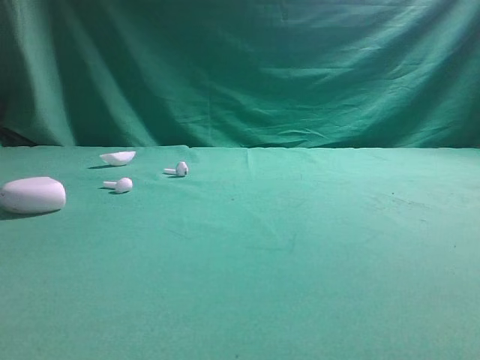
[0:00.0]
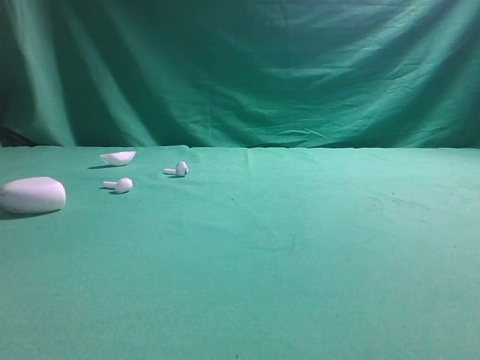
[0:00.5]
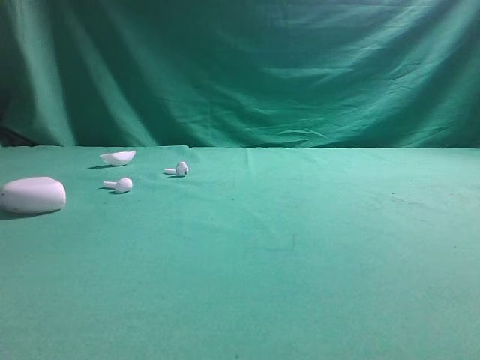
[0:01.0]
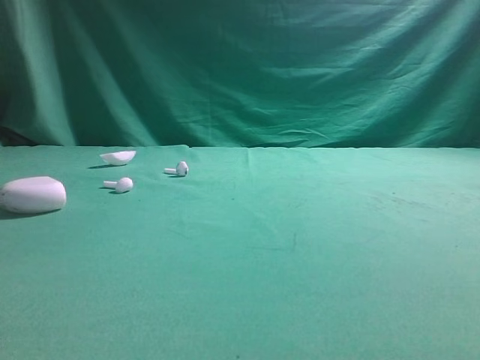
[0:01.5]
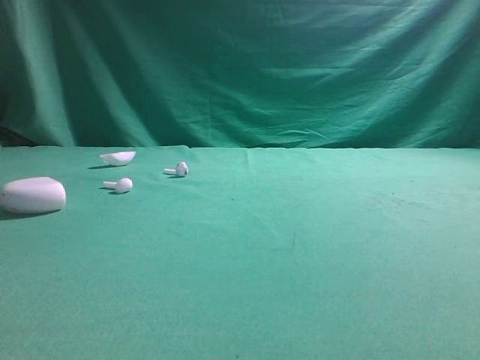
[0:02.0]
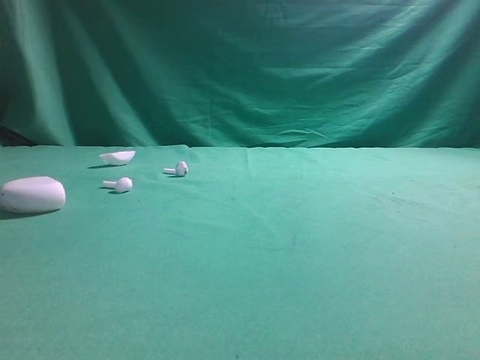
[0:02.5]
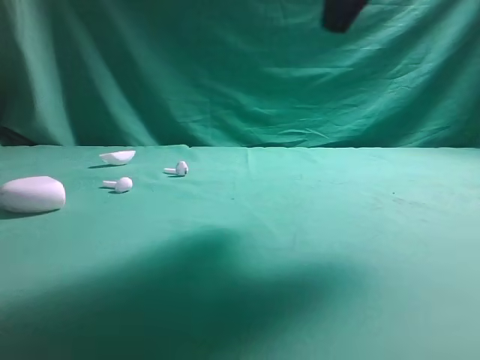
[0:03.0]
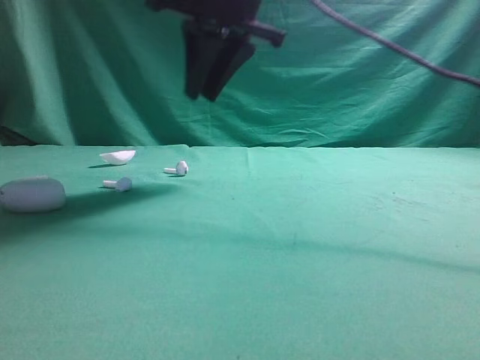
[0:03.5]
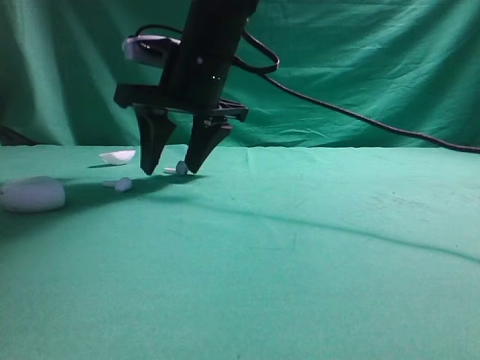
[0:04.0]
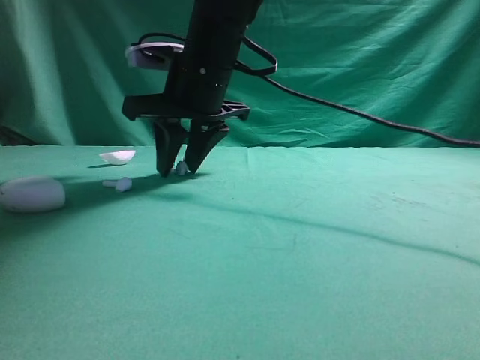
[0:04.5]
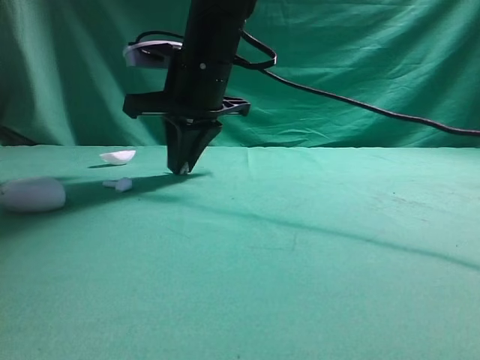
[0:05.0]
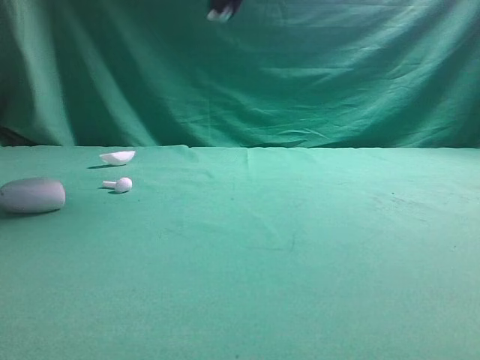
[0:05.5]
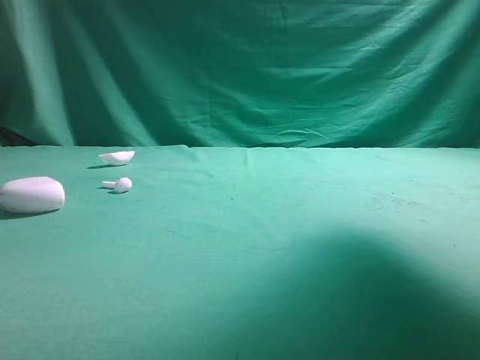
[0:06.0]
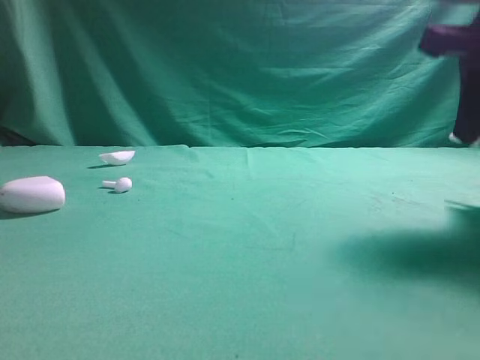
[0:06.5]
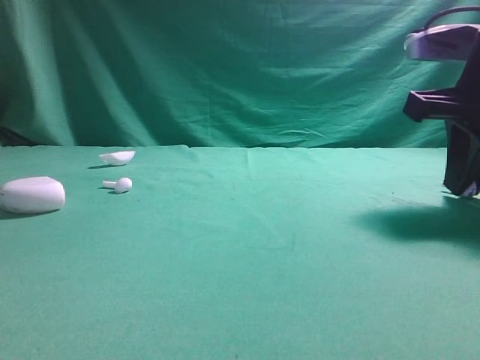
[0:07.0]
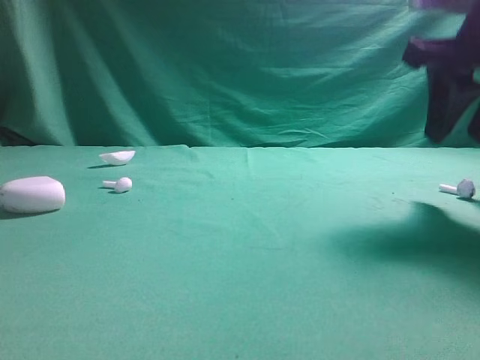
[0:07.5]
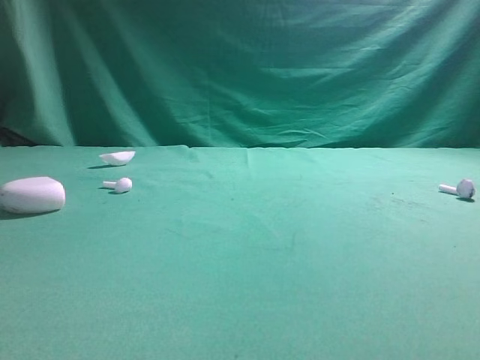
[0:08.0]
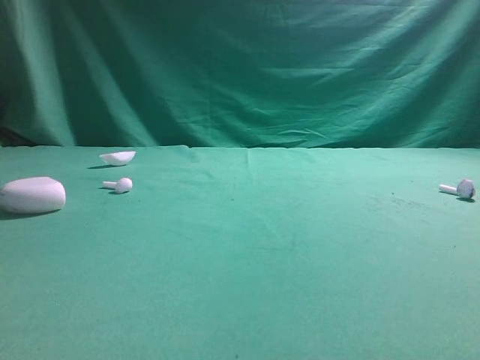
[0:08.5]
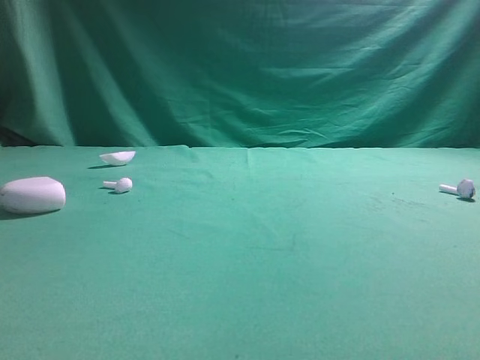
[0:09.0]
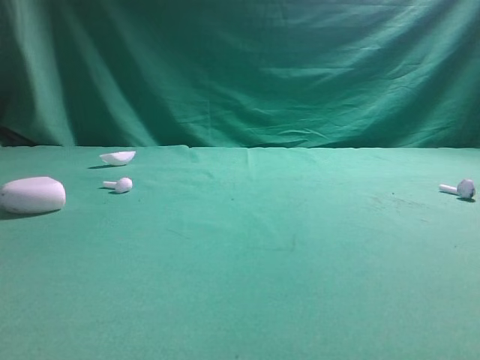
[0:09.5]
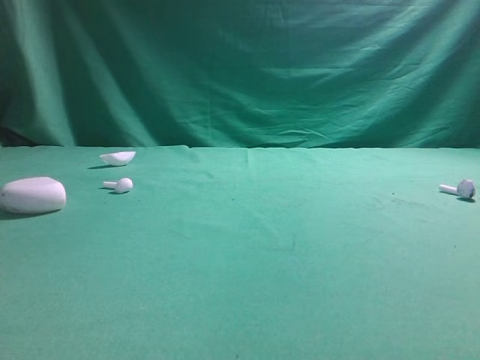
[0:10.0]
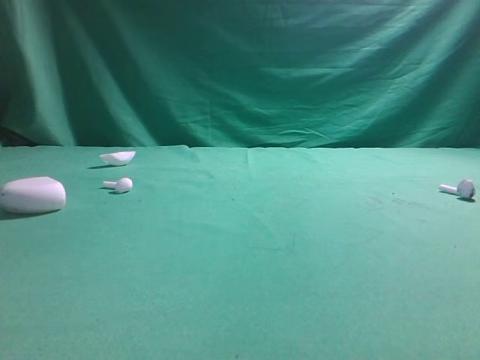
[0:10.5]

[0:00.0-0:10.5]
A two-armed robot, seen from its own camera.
Step, 0:00.0 to 0:05.0: Grasp the Bluetooth earbud.
Step, 0:05.5 to 0:07.5: Place bluetooth earbud on the right side of the table.

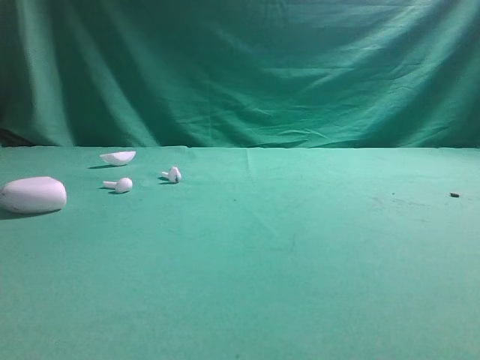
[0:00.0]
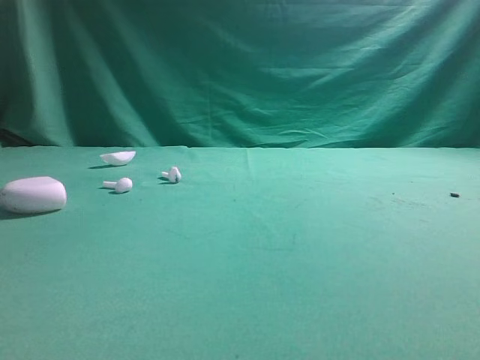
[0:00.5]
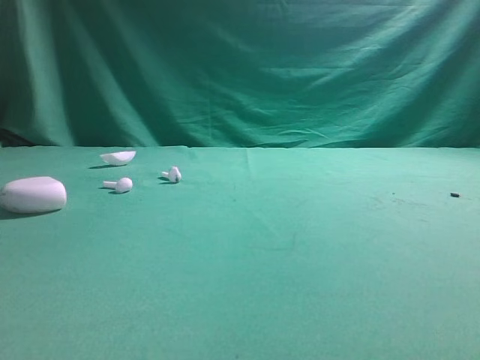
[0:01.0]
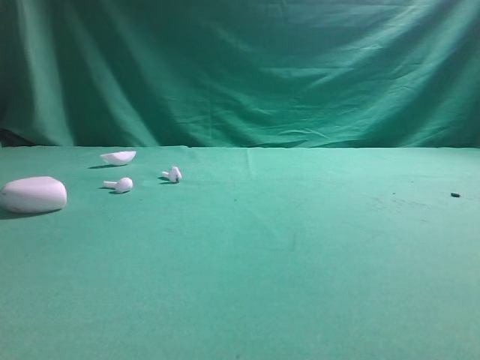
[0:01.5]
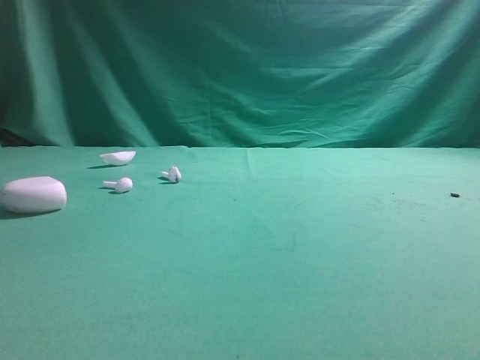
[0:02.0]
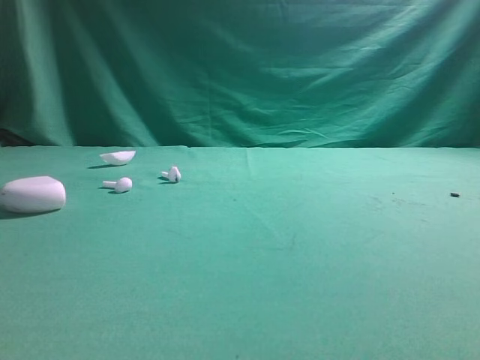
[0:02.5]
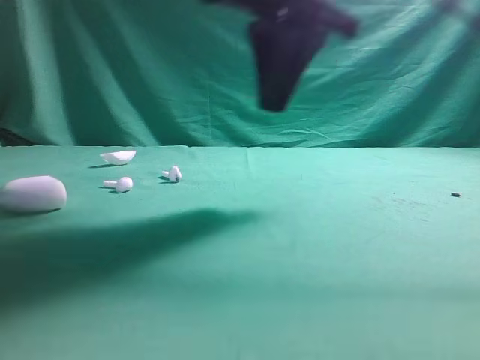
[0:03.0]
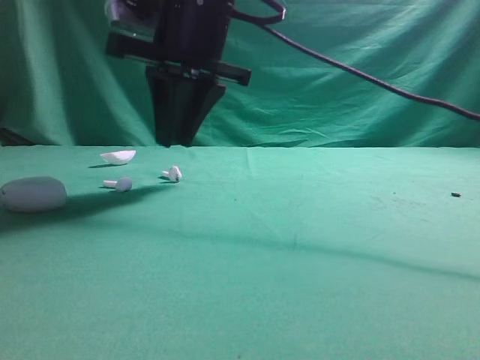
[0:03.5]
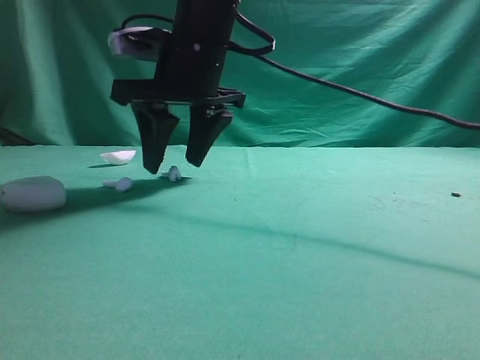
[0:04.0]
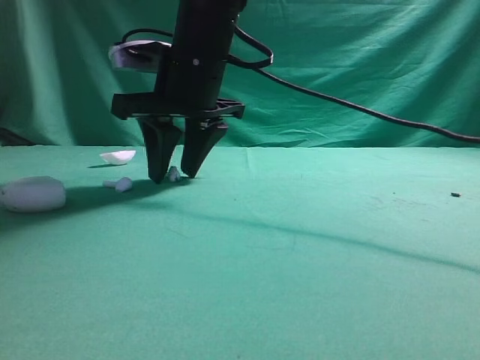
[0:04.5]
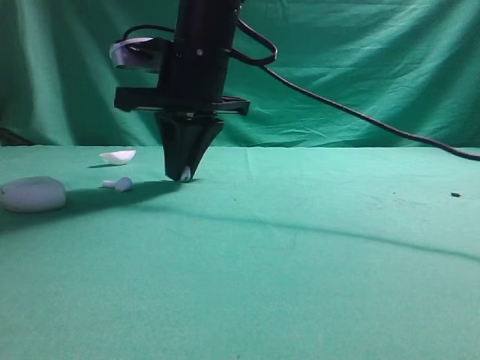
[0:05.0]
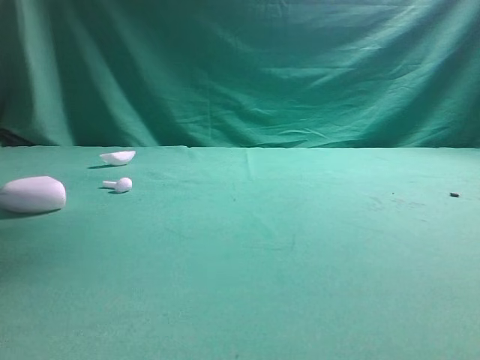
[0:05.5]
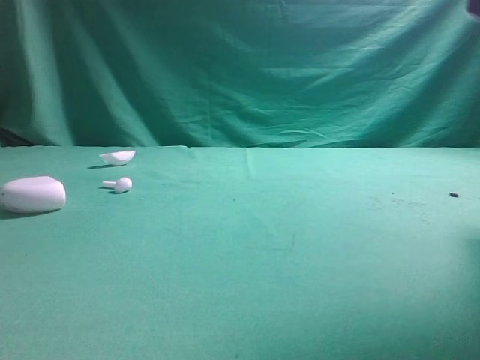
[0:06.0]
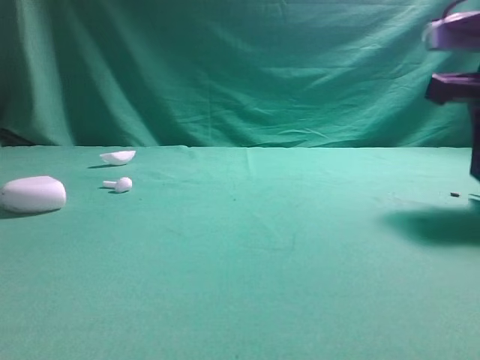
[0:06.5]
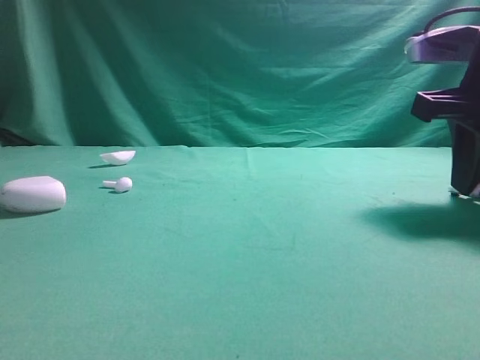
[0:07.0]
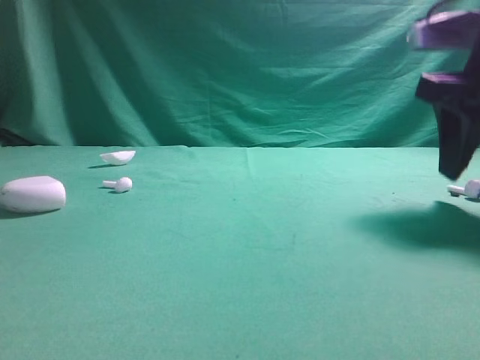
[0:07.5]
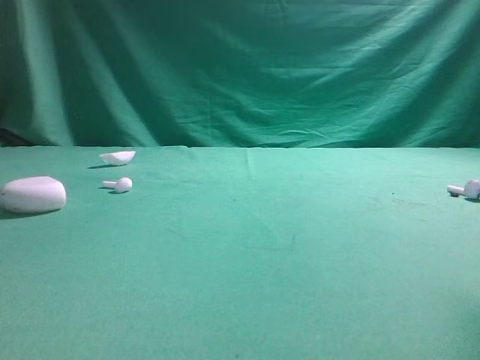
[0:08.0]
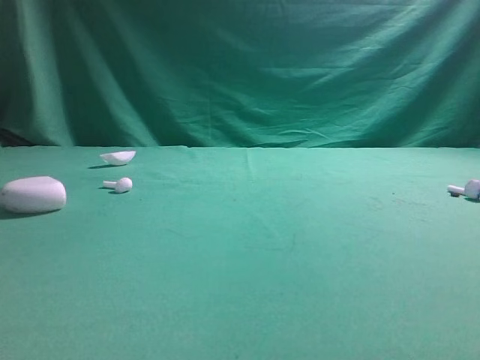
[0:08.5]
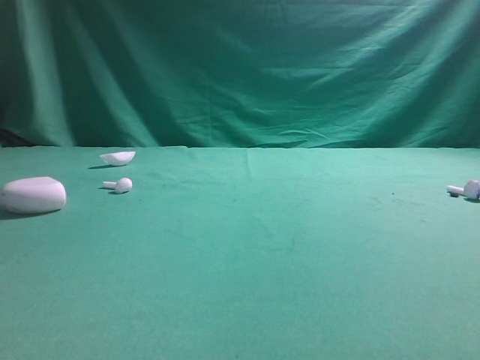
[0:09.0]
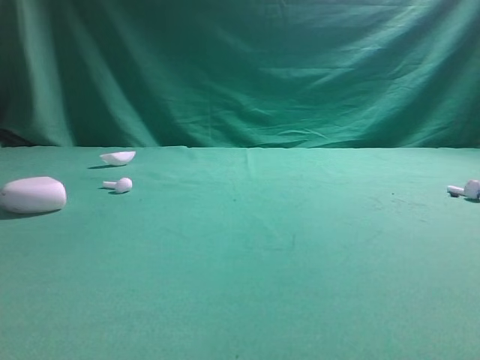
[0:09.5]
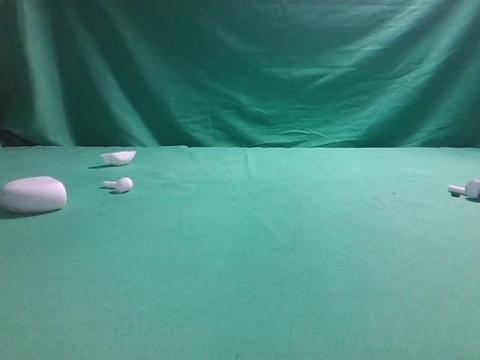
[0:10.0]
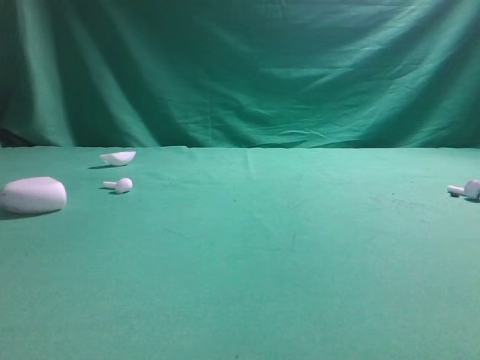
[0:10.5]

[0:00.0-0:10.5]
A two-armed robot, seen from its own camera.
Step, 0:00.0 to 0:05.0: Grasp the Bluetooth earbud.
Step, 0:05.5 to 0:07.5: Place bluetooth earbud on the right side of the table.

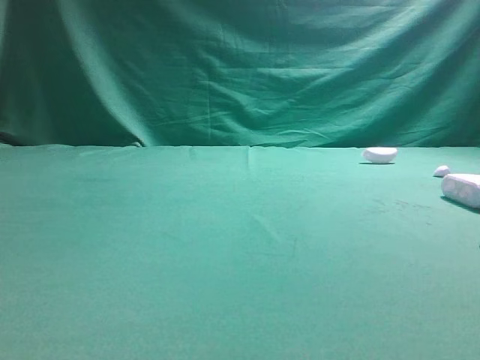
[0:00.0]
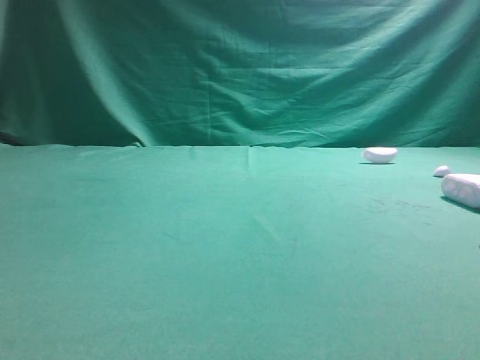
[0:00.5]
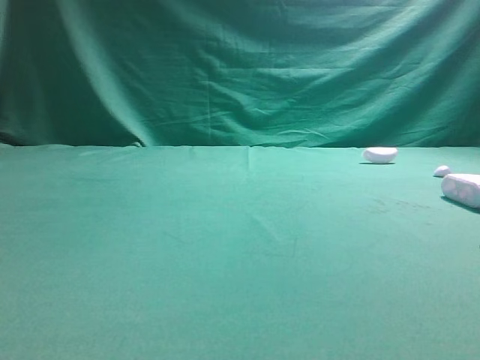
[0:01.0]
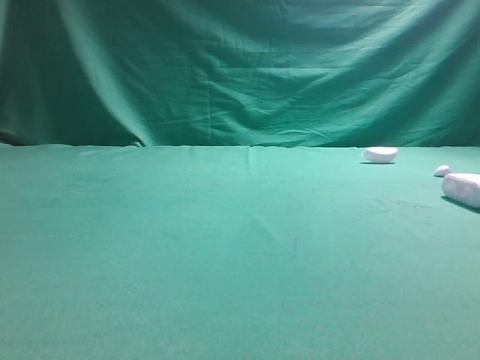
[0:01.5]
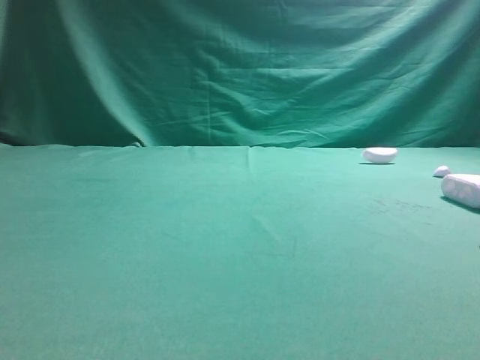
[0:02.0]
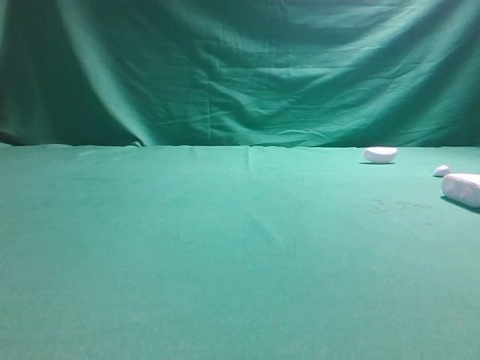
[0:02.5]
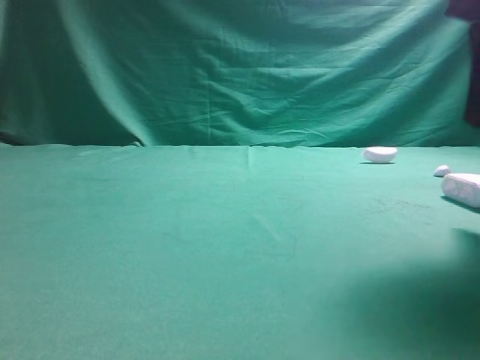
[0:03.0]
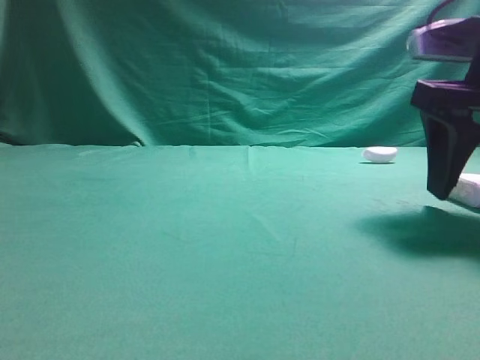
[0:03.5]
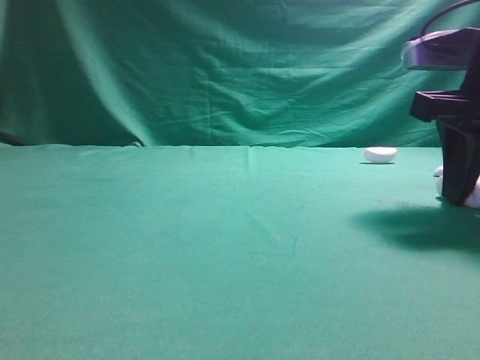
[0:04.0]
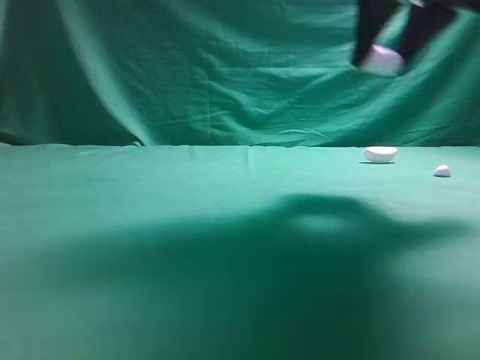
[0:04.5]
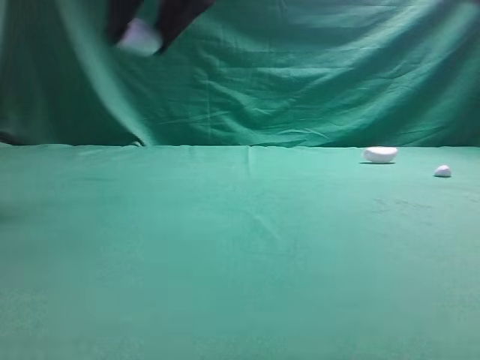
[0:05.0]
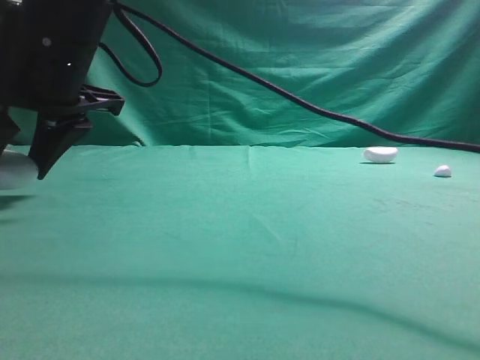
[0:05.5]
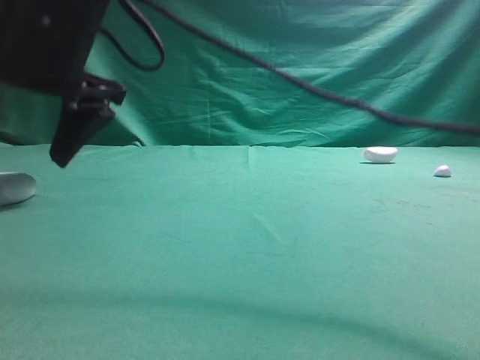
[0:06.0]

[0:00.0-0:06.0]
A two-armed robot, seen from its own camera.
Step, 0:00.0 to 0:04.0: Grasp the Bluetooth earphone case.
